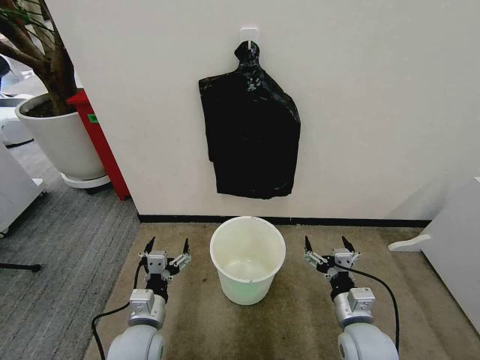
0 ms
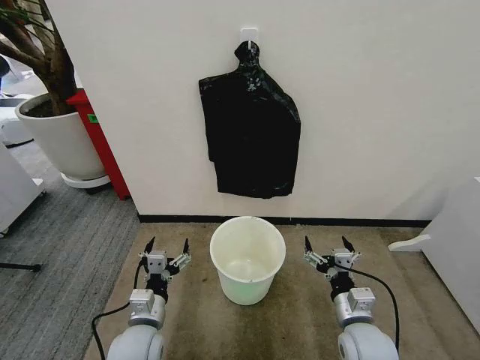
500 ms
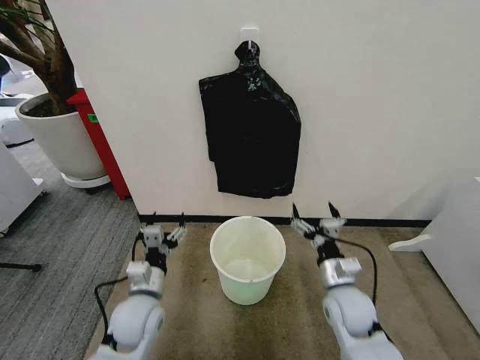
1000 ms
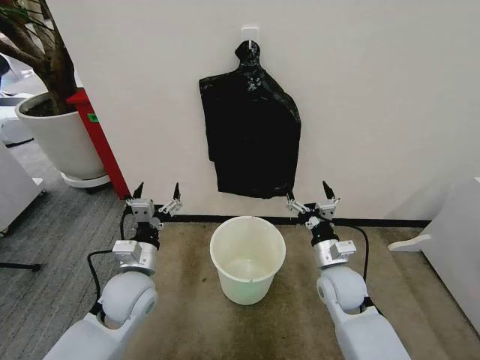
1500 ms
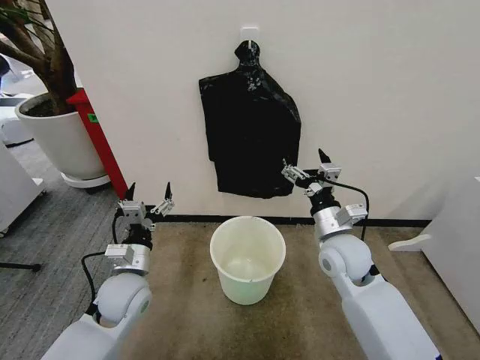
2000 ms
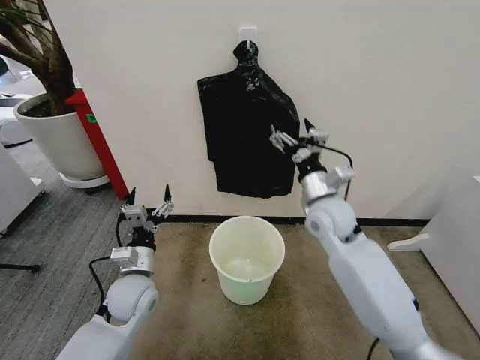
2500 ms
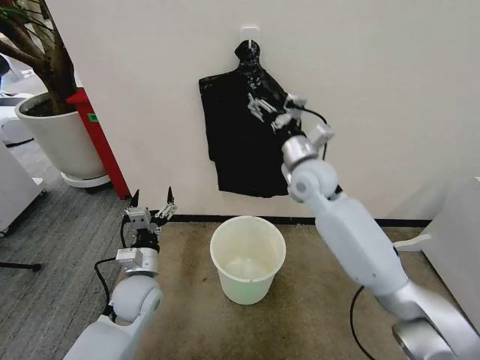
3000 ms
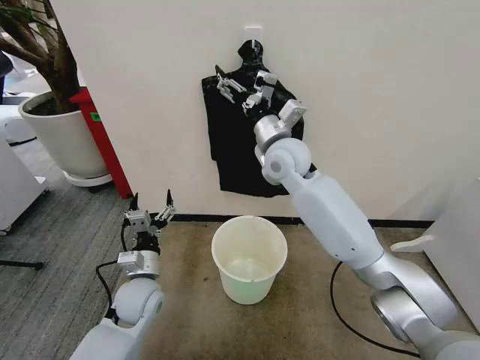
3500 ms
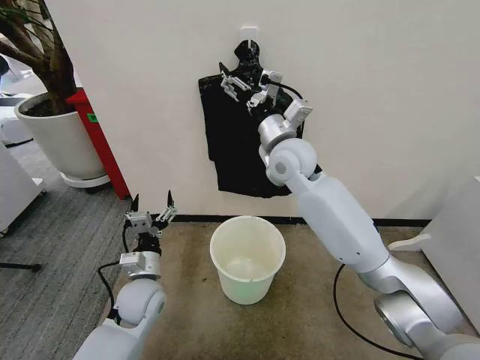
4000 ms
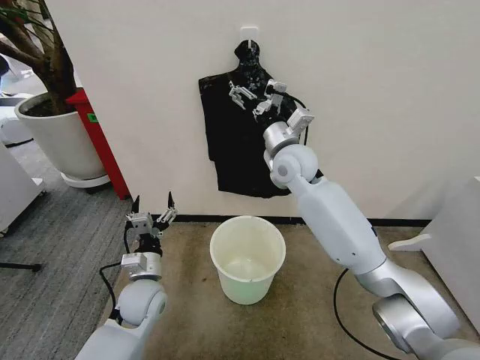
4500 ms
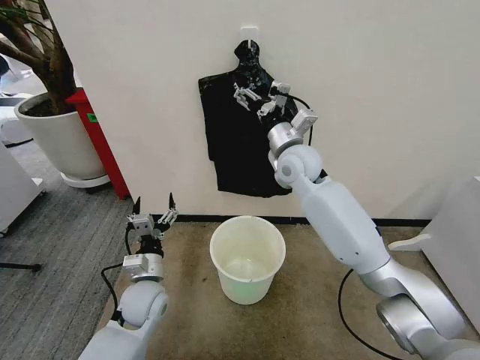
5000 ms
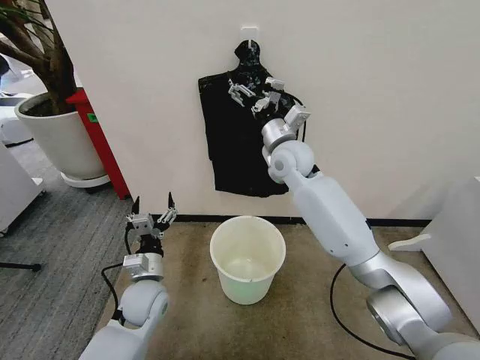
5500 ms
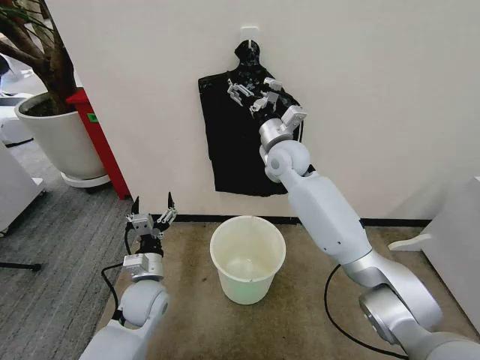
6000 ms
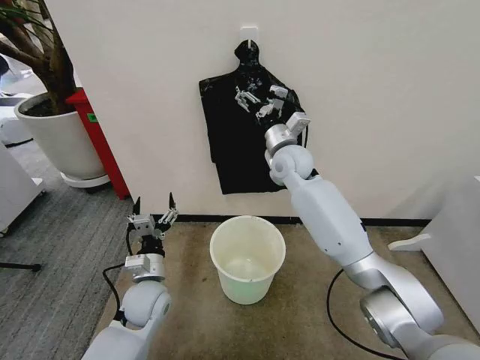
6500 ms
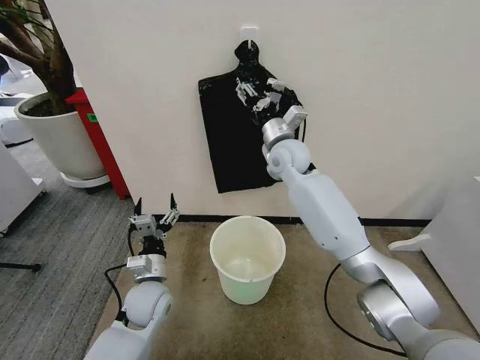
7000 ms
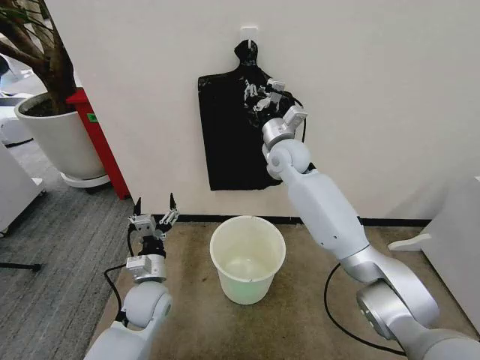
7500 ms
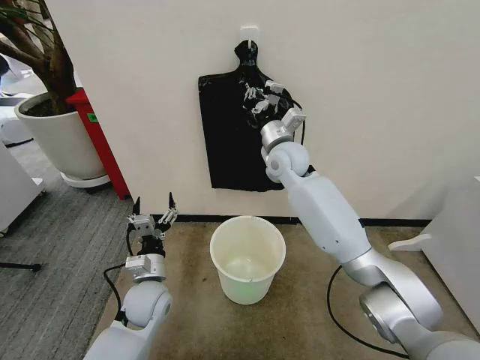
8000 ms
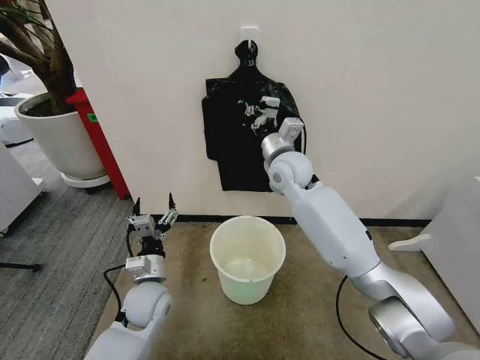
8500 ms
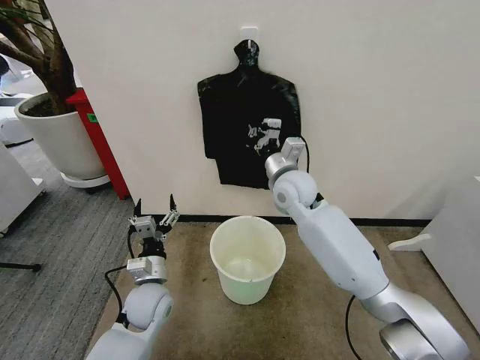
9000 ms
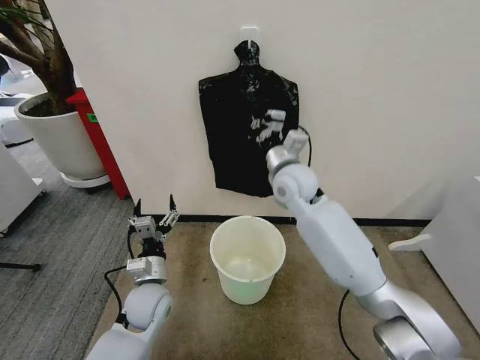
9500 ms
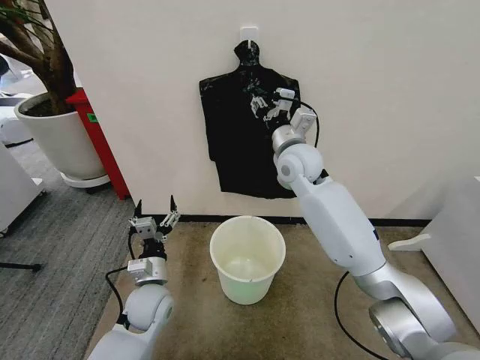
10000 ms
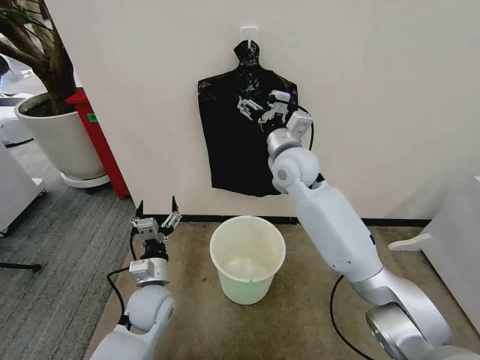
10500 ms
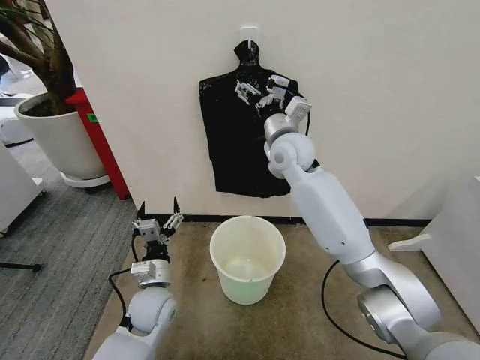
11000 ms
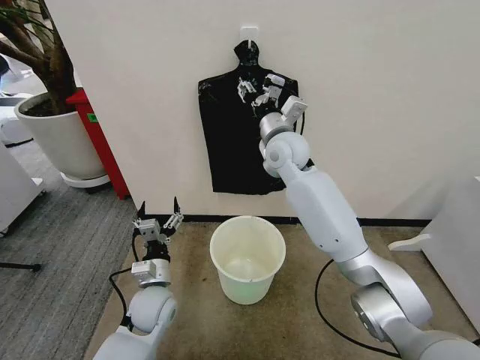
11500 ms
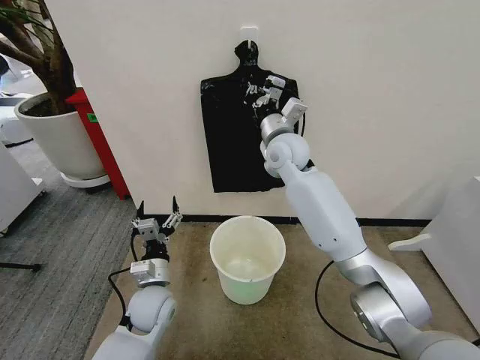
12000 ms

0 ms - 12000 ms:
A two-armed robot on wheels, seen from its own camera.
Task of the whole recording: Place the garbage bag over the trash bin.
2000 ms - 4000 ms: The right gripper moves upward, forward and to the left, some 25 cm.
4000 ms - 6000 ms: The right gripper changes place by about 5 cm.
6000 ms - 8000 ms: The right gripper closes its fingers.
8000 ms - 10000 ms: The right gripper opens.
10000 ms - 12000 ms: The right gripper closes up.

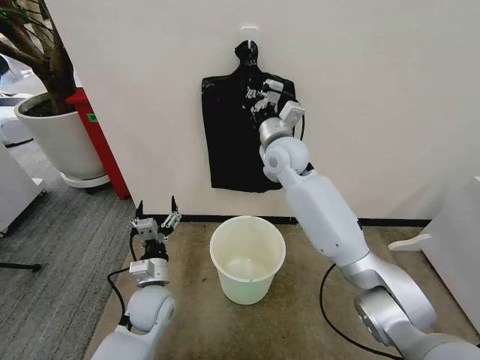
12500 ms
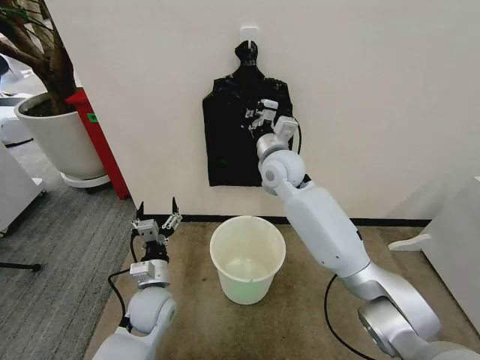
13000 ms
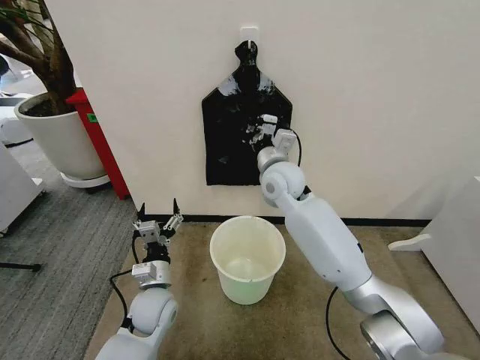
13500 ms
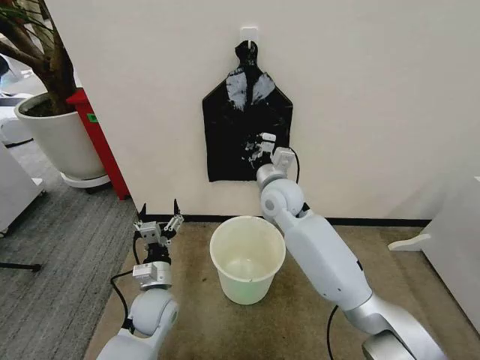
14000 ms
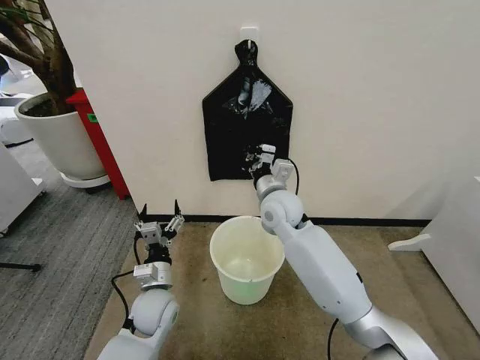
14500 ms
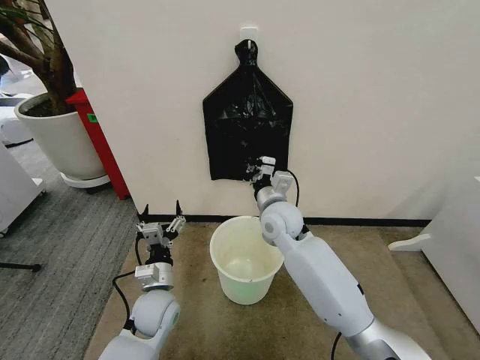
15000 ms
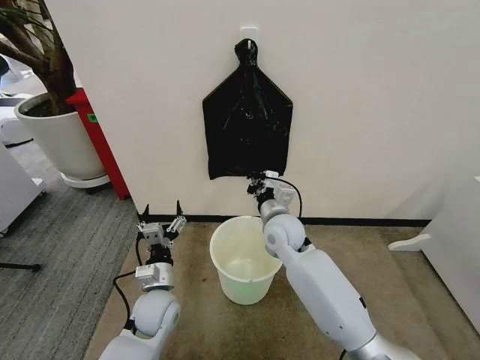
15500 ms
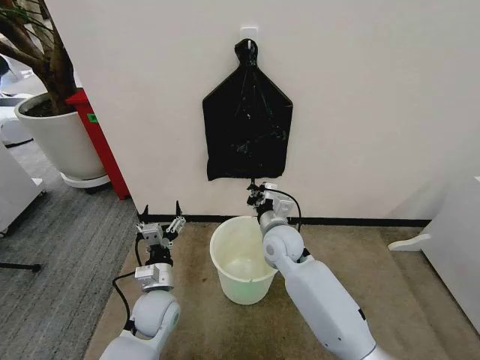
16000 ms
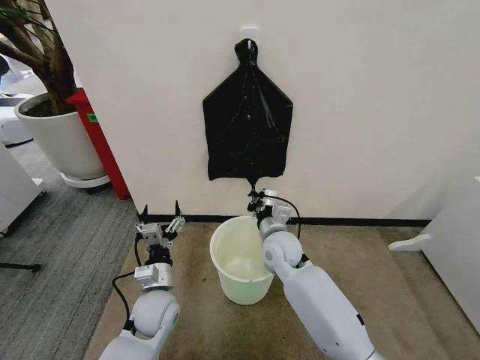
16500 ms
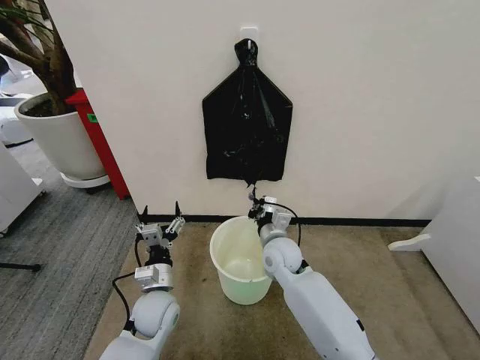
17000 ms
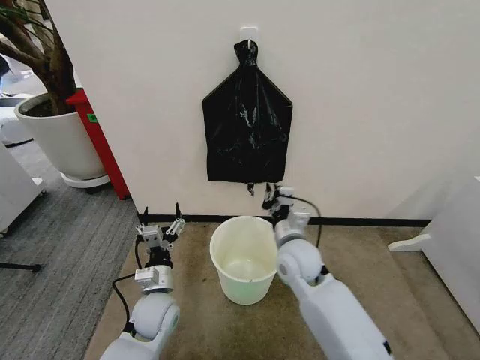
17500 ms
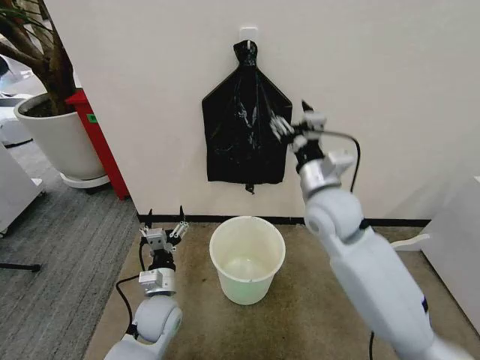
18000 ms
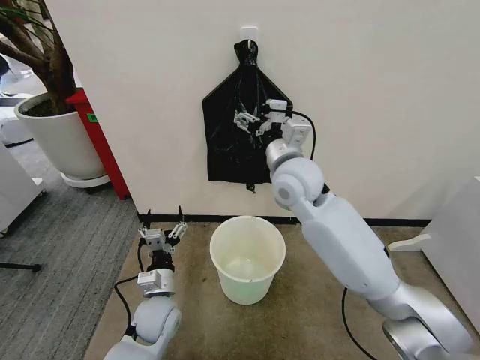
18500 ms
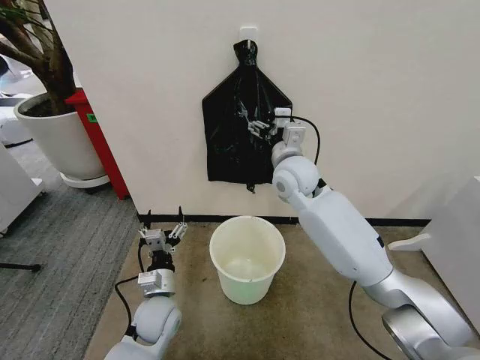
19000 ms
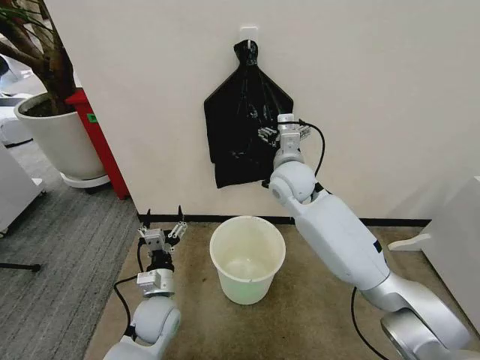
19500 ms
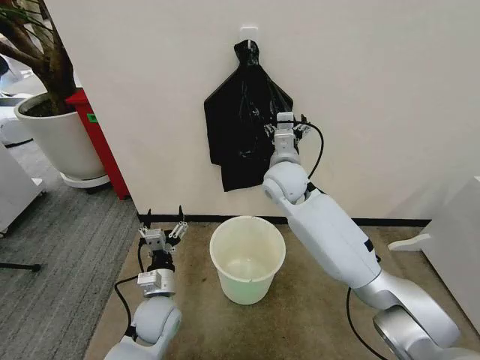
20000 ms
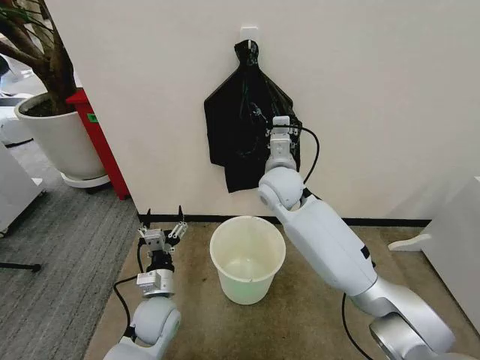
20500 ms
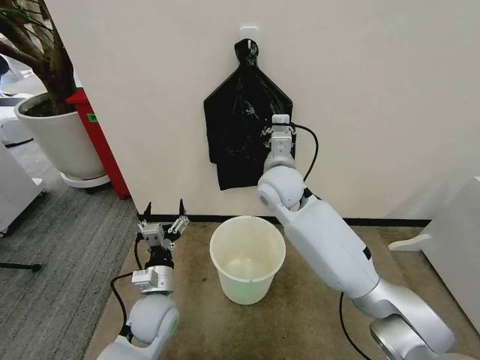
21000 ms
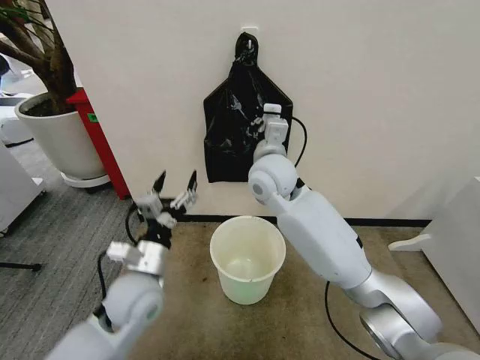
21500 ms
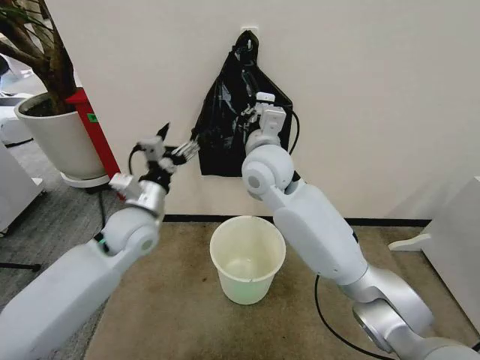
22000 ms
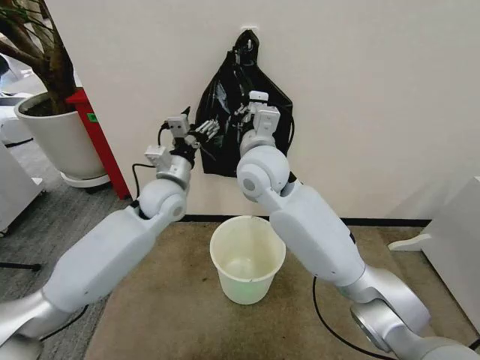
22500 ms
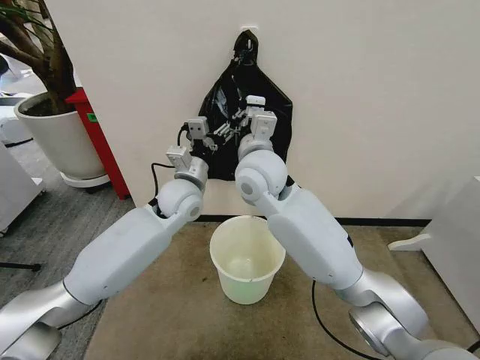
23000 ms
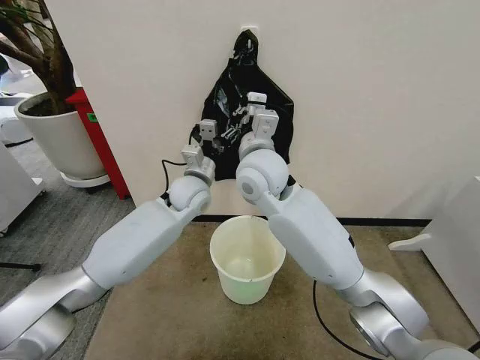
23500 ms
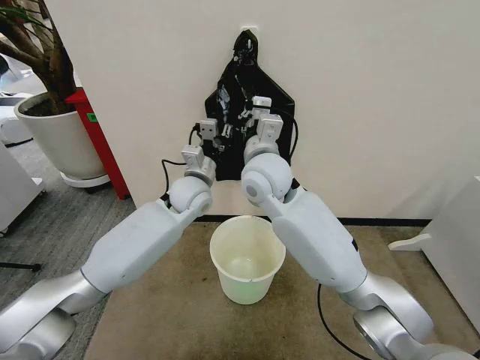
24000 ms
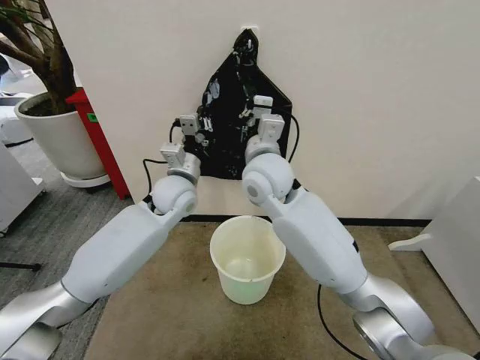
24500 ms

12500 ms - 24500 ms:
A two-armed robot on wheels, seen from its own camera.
Task of the whole recording: Place the garbage bag over the trash bin.
12500 ms - 14500 ms: The right gripper moves downward and backward, some 10 cm.
14500 ms - 16500 ms: The right gripper goes roughly 10 cm downward.
16500 ms - 18500 ms: The right gripper shifts about 20 cm upward, and opens its fingers.
18500 ms - 20500 ms: The right gripper ends up roughly 5 cm from where it was, and closes.
20500 ms - 22500 ms: The right gripper shifts about 10 cm upward. The left gripper is displaced upward and forward by about 25 cm.
22500 ms - 24500 ms: The left gripper closes up.

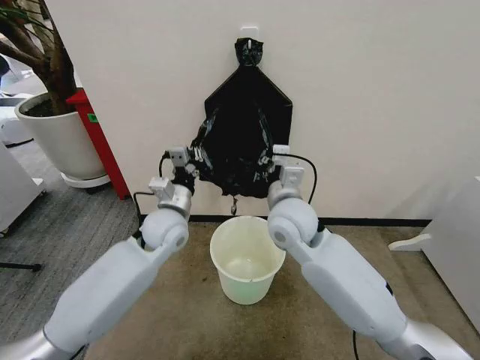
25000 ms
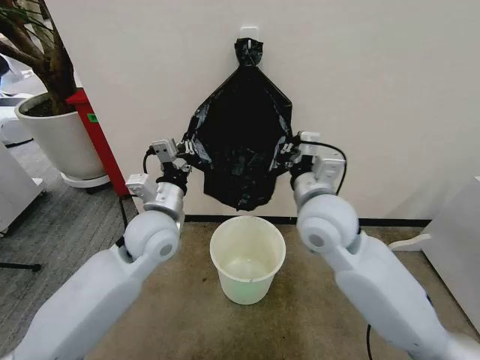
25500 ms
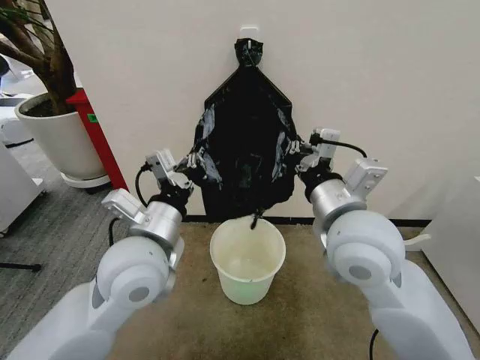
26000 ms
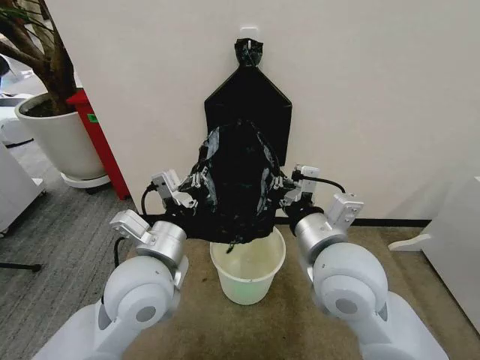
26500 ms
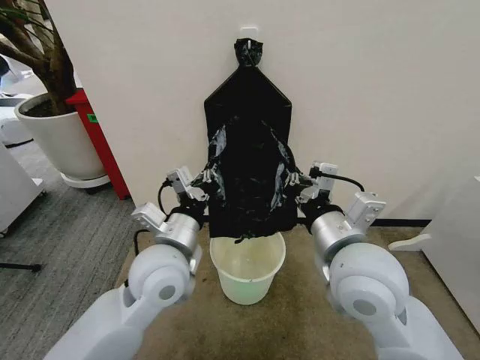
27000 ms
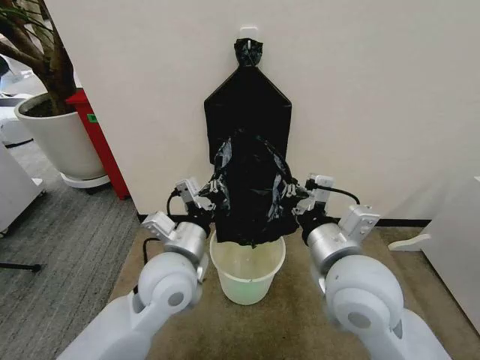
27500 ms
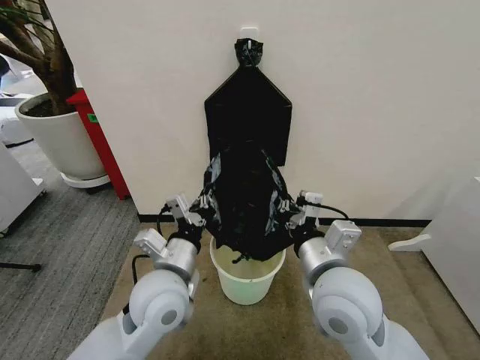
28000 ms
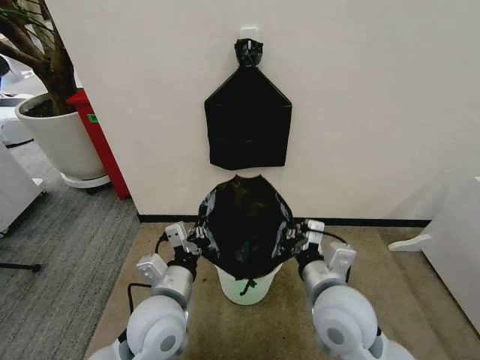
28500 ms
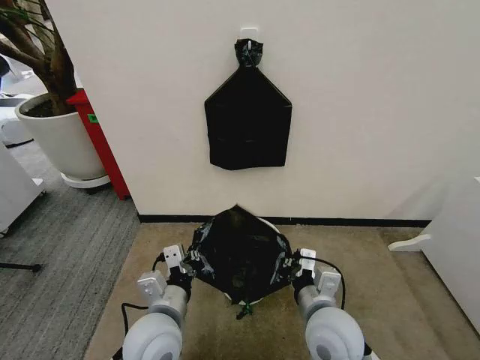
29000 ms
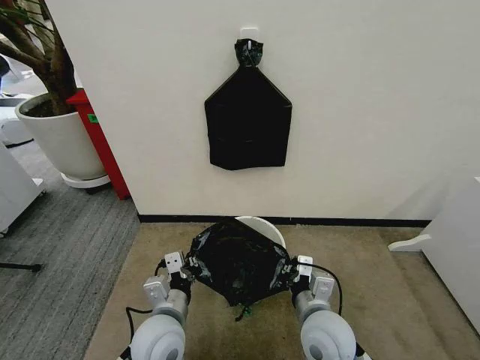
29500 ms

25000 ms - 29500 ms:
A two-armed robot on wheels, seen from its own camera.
Task of the whole recording: Place the garbage bag over the trash bin.
25000 ms - 27000 ms: The right gripper moves backward and to the right, some 15 cm. The left gripper moves backward and upward, some 15 cm.
27000 ms - 29500 ms: The left gripper travels downward and backward by roughly 15 cm, while the right gripper goes about 20 cm downward.
